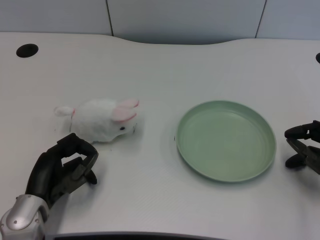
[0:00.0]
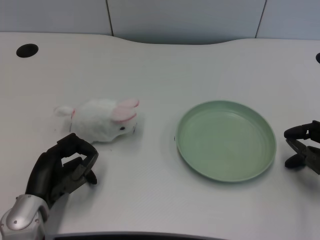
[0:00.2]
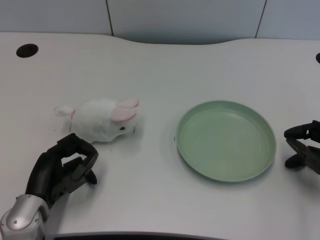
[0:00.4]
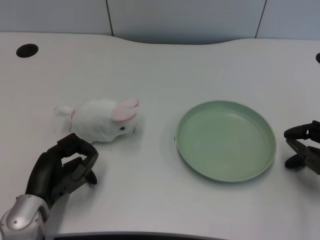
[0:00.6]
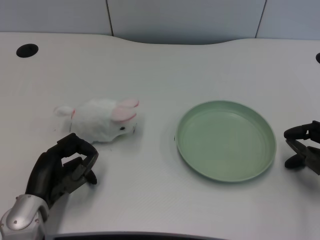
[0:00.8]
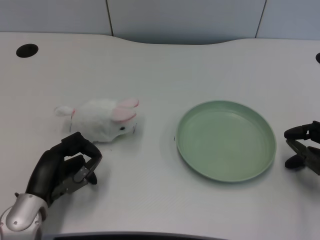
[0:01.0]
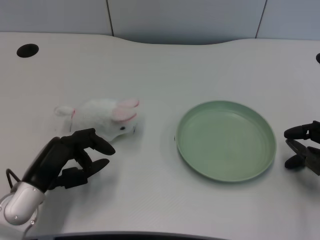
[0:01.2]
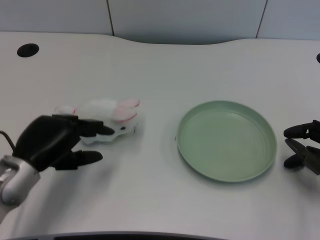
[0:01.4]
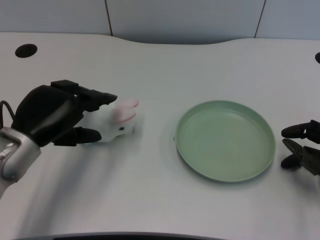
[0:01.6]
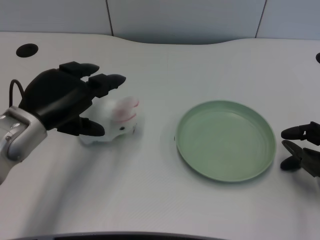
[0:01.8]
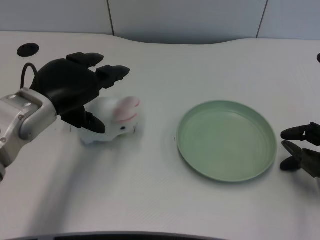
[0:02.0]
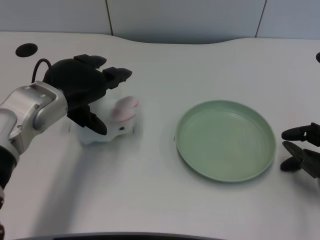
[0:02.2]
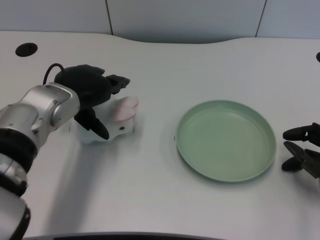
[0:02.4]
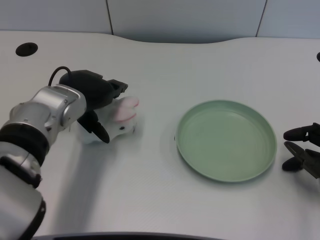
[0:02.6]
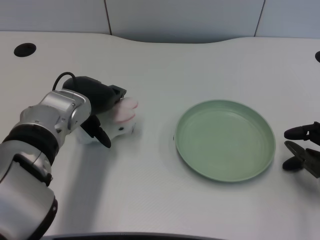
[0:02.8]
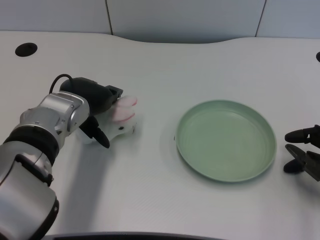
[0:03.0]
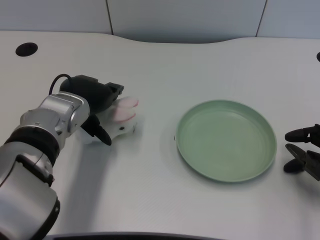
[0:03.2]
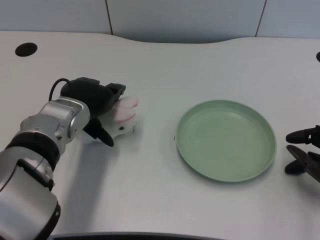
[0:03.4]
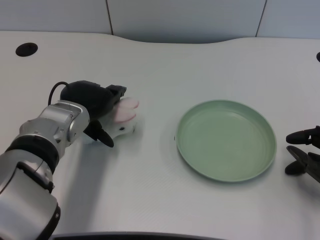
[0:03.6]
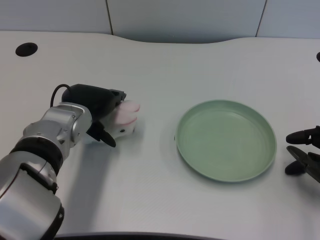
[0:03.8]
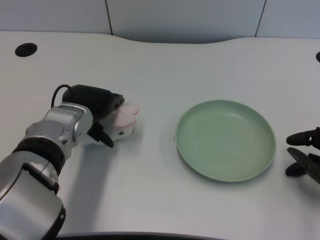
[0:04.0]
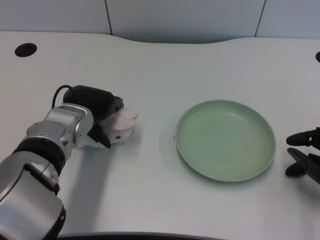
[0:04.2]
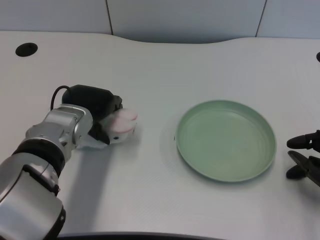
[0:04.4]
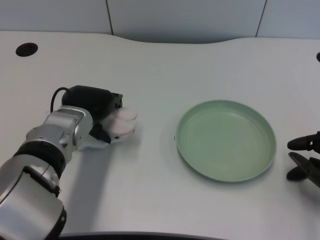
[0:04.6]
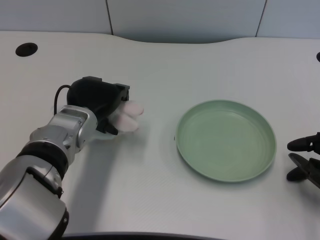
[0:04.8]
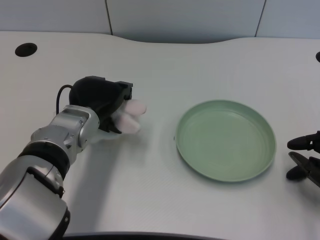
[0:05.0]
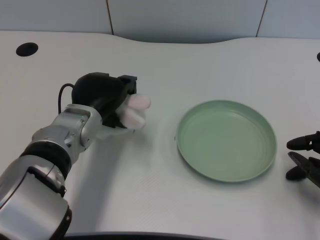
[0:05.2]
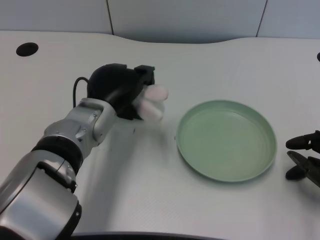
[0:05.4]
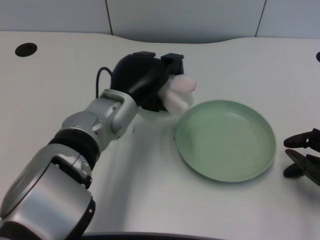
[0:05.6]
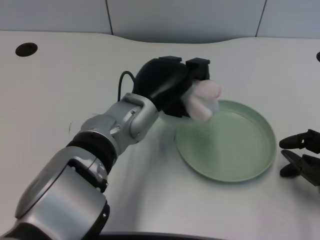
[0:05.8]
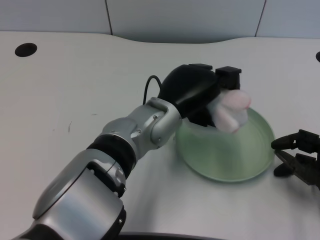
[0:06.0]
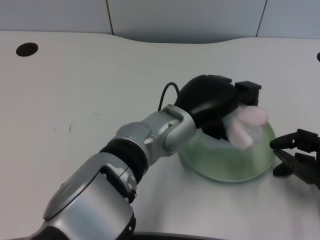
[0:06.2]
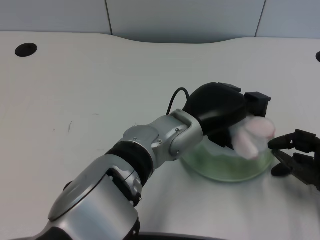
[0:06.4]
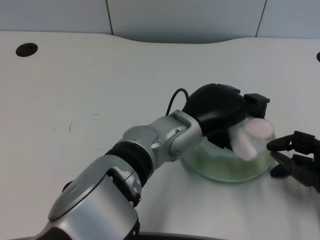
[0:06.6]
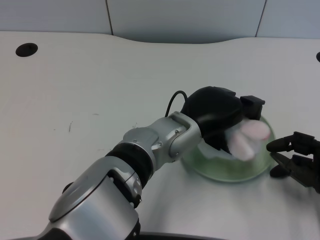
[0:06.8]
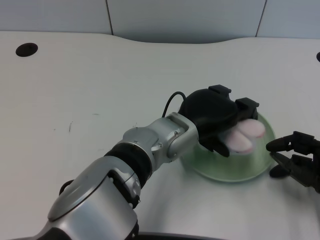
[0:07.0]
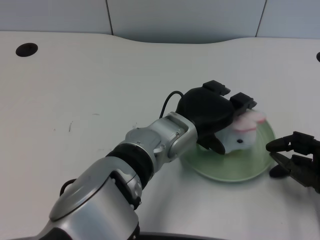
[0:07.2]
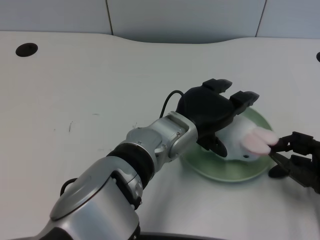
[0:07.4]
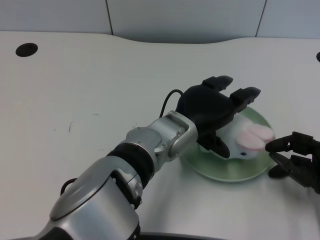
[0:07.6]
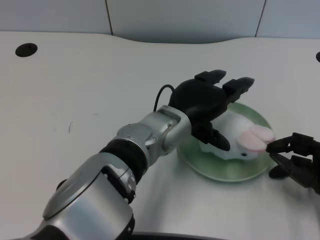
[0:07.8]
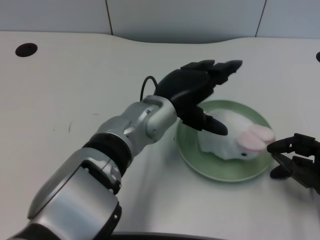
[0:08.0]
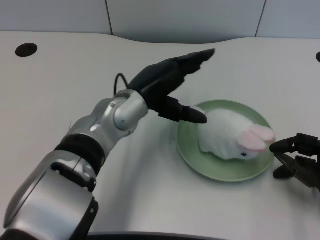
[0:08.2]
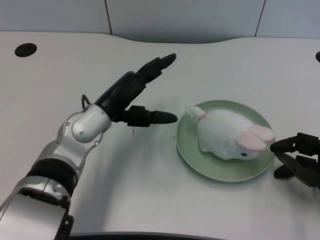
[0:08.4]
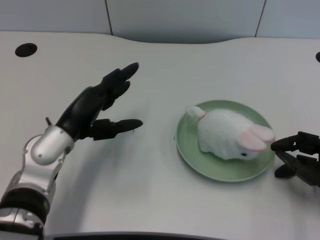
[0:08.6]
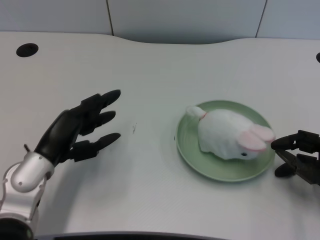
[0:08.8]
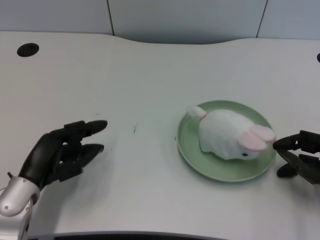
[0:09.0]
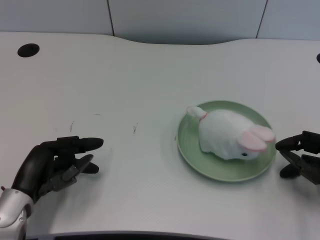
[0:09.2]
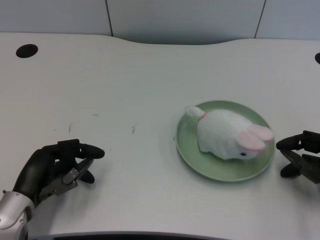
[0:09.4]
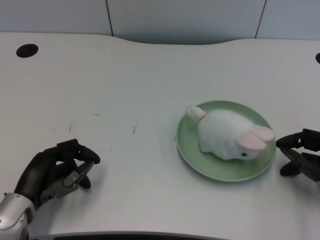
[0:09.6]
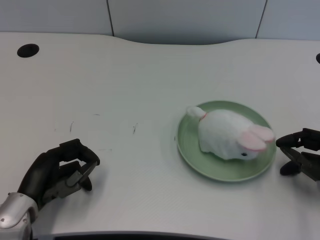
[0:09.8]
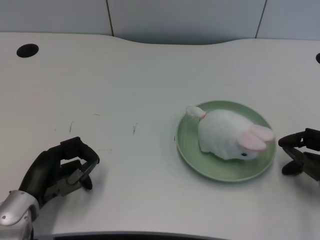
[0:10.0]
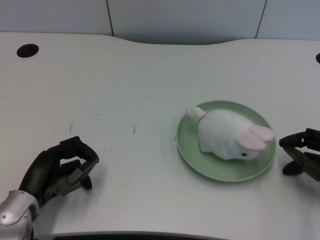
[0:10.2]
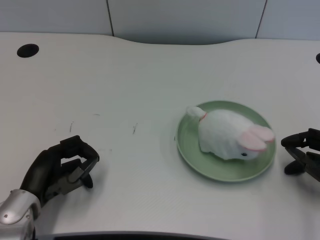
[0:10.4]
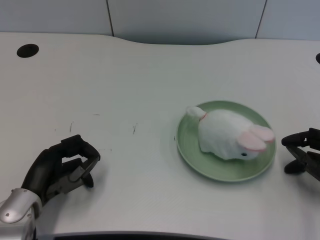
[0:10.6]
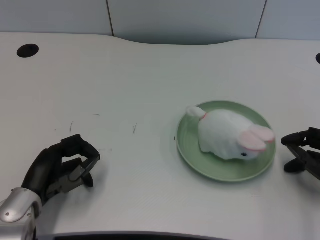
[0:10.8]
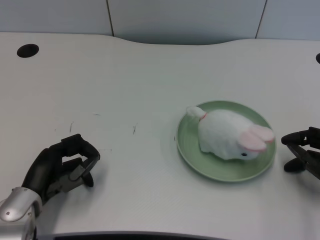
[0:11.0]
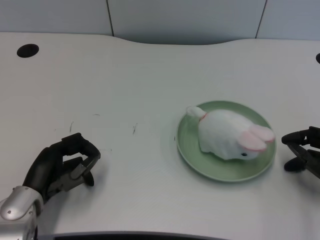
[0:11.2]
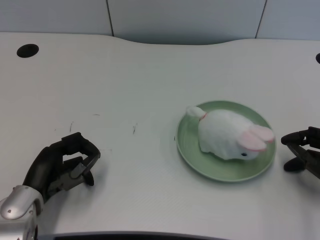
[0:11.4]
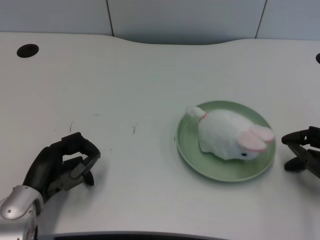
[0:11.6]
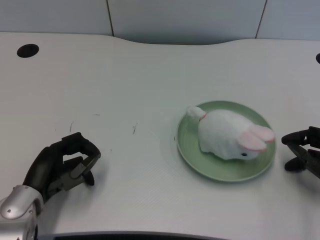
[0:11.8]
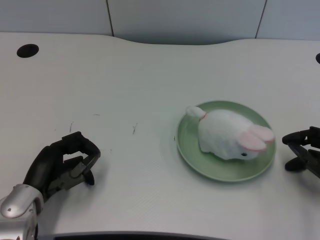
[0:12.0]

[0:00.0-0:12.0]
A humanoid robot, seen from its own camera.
Task of the whole recording: pick up the rabbit doll from the table and place it on the plate.
Step, 0:01.0 to 0:04.8: Grasp the rabbit doll with the left gripper.
Step, 0:05.0 to 0:07.6: Place the rabbit doll into the plate with the left gripper.
0:01.6 to 0:03.0: The left hand heads to the right and forward, covering about 10 cm.
0:03.0 to 0:04.4: The hands stay close to where they were, moving slightly.
0:04.4 to 0:06.0: The left hand moves to the right, about 10 cm.
0:07.6 to 0:09.0: The left hand shifts some 25 cm to the left.
0:09.0 to 0:10.4: There are only small adjustments of the hands.
0:10.4 to 0:12.0: The two hands keep their place.

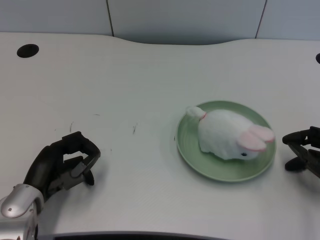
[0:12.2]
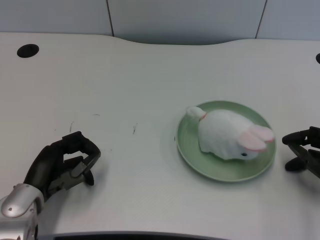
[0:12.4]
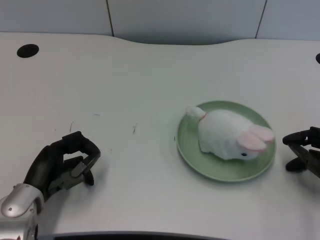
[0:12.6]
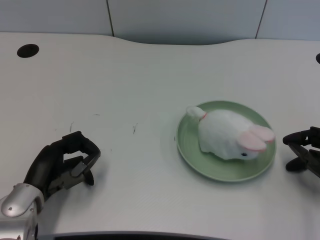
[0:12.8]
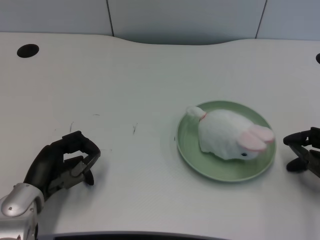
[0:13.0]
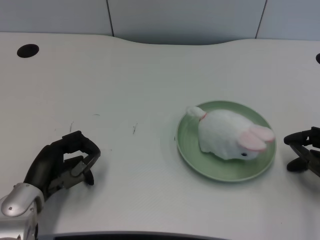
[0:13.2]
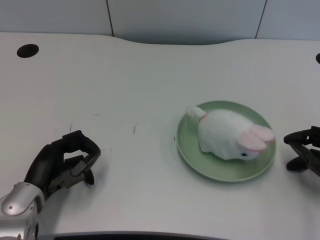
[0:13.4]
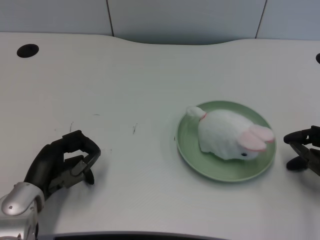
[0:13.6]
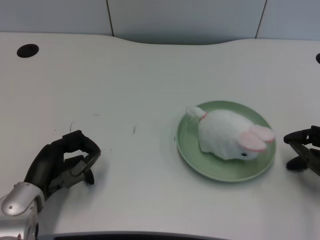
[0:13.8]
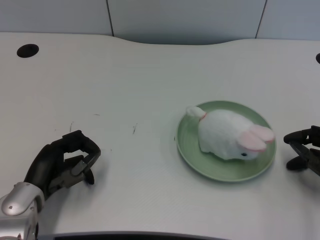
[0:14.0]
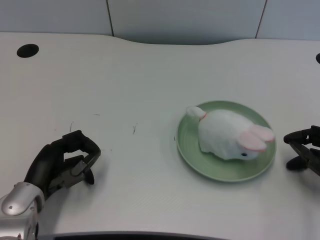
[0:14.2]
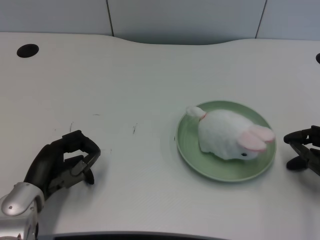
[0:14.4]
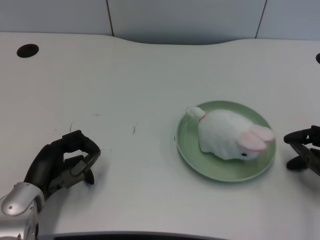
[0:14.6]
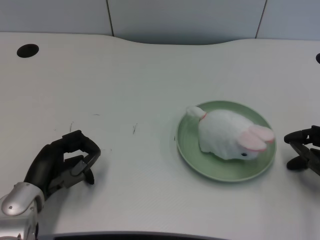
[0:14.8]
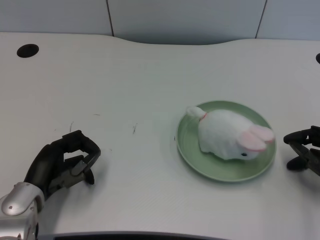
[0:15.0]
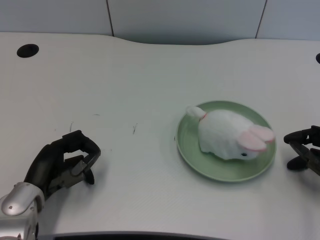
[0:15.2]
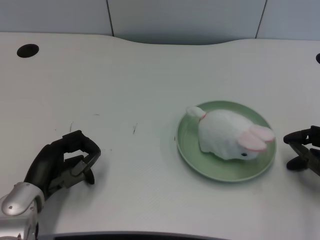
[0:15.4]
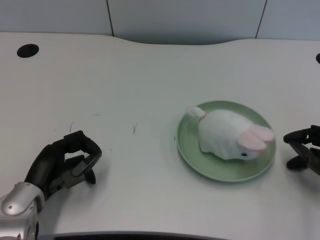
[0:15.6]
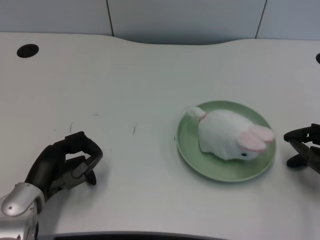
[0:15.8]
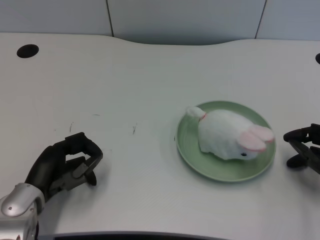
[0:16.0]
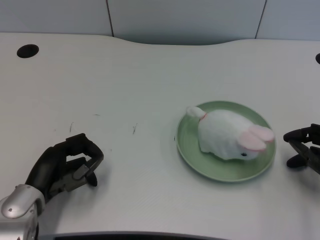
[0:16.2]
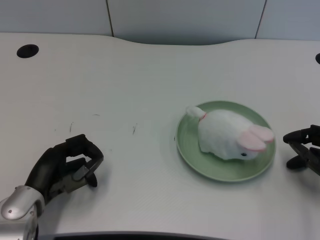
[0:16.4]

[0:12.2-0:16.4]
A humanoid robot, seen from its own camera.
Task of the whole recording: pick up the rabbit doll from the table and place it on the plate.
0:12.2 to 0:16.4: The two hands keep their place.

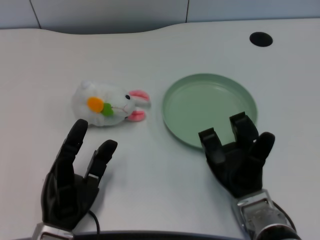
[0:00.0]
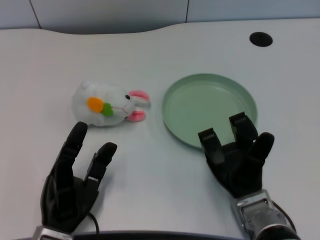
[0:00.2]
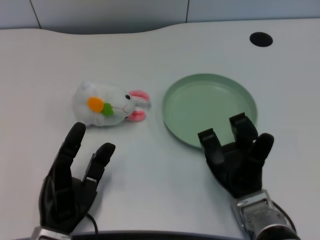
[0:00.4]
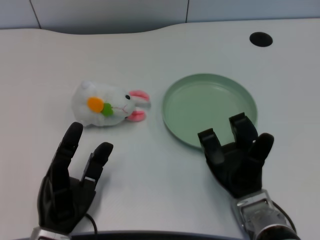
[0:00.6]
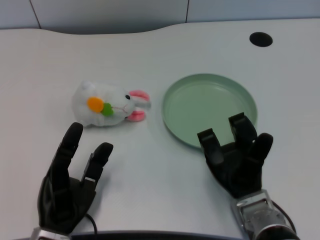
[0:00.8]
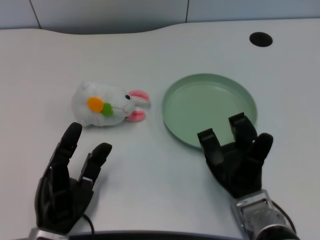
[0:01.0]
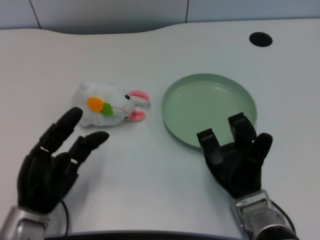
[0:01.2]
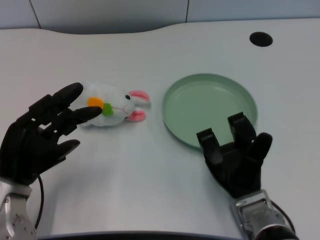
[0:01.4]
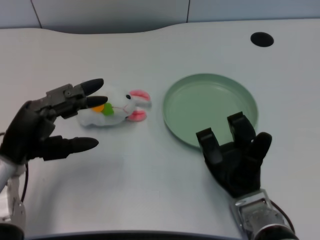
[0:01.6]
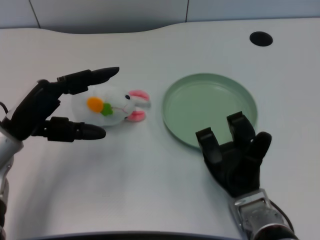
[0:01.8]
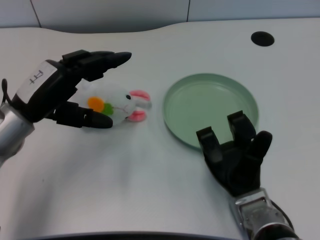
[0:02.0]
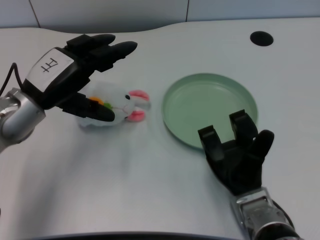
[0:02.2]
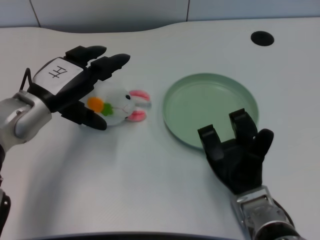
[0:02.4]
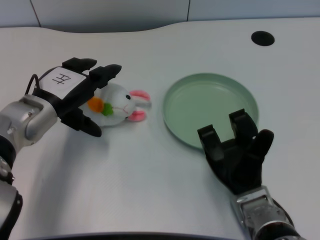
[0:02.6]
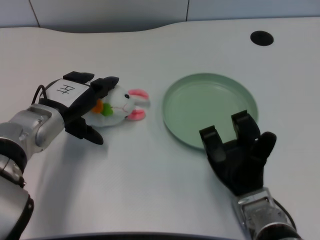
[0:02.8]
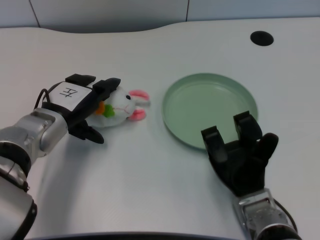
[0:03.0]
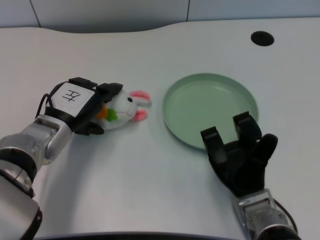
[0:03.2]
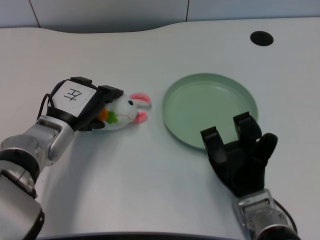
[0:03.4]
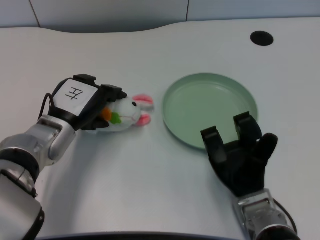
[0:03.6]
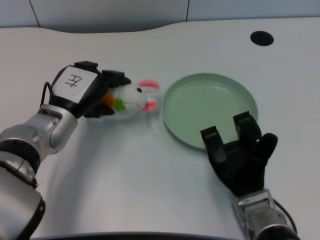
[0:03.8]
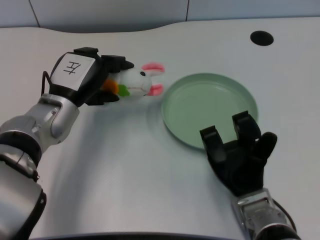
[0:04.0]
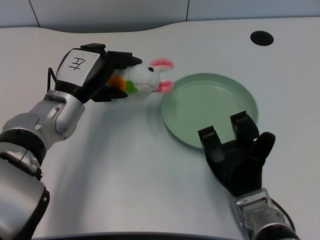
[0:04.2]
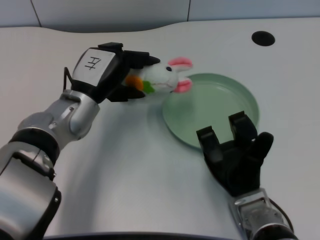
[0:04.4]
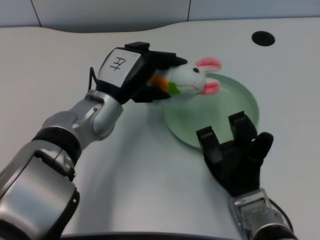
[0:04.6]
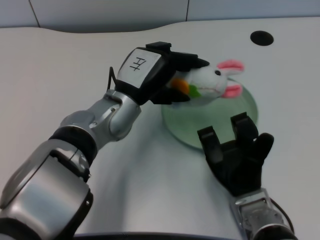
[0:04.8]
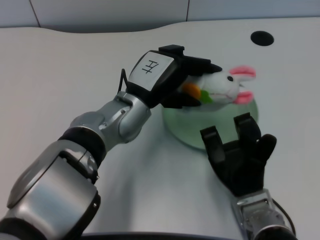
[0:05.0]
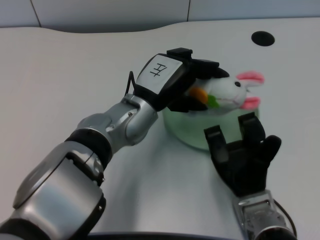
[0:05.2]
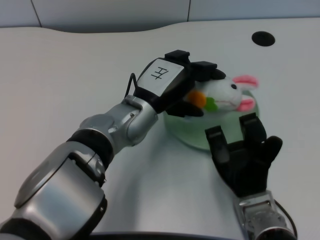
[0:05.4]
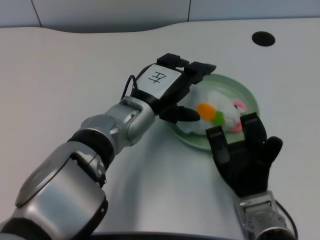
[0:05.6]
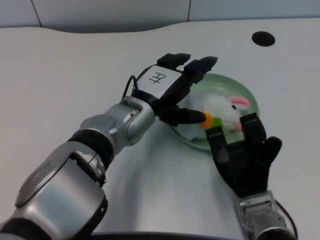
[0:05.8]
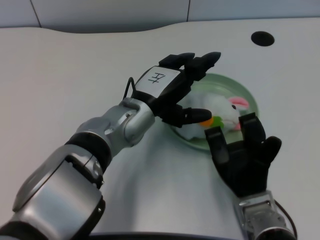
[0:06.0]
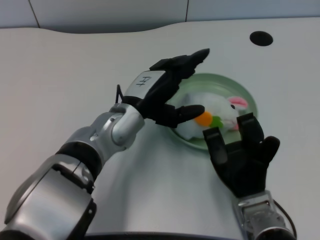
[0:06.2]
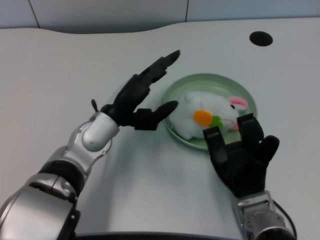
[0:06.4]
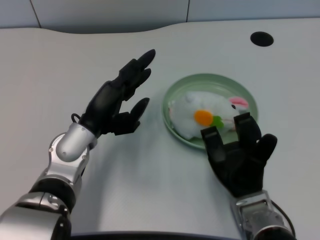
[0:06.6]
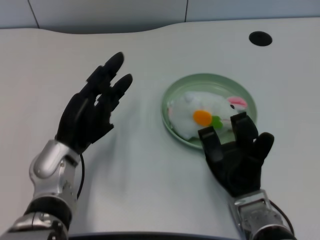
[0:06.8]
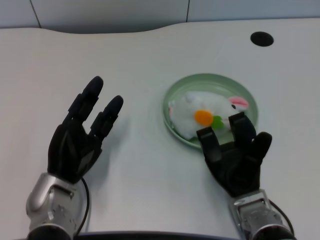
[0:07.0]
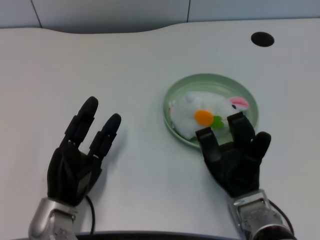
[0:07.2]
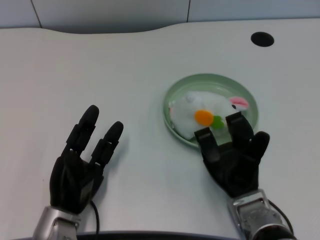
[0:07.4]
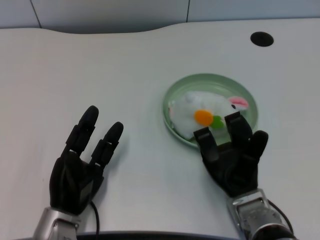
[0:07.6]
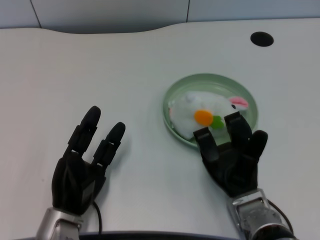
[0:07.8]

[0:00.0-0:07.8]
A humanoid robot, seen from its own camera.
Task of the whole recording: pick up the rabbit doll from the table and place it on the plate.
Step, 0:01.0 to 0:03.6: Grasp the rabbit doll with the left gripper.
Step, 0:03.8 to 0:05.6: Place the rabbit doll into the plate with the left gripper.
0:01.6 to 0:03.2: The left hand goes about 10 cm forward and to the right.
0:03.2 to 0:04.6: The left hand travels to the right by roughly 10 cm.
0:06.2 to 0:07.8: The left hand shifts approximately 20 cm downward, backward and to the left.
